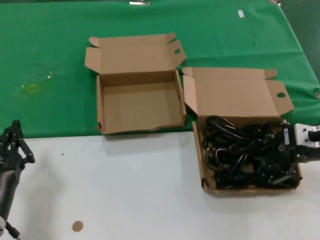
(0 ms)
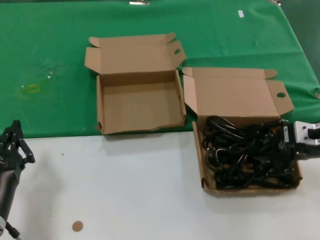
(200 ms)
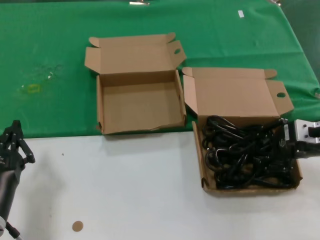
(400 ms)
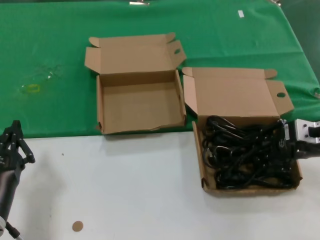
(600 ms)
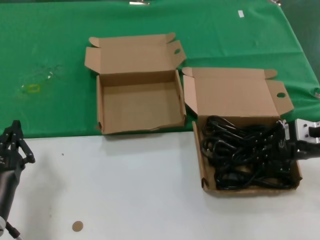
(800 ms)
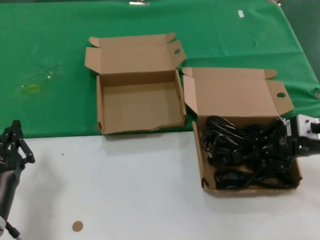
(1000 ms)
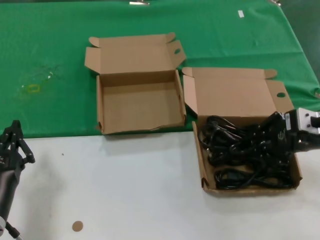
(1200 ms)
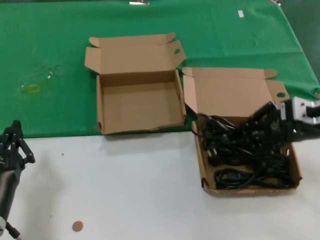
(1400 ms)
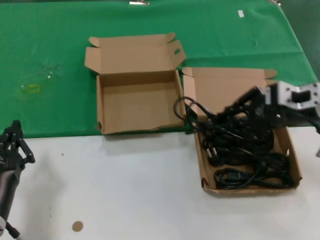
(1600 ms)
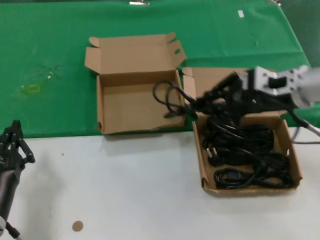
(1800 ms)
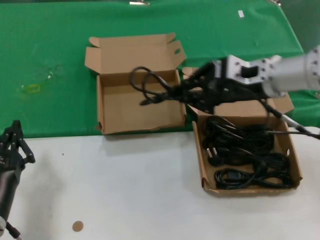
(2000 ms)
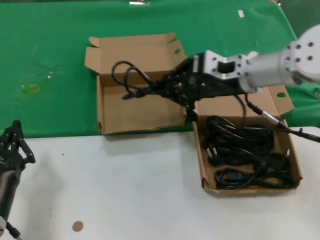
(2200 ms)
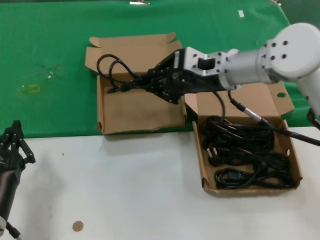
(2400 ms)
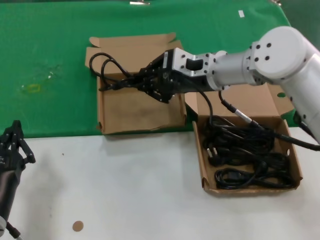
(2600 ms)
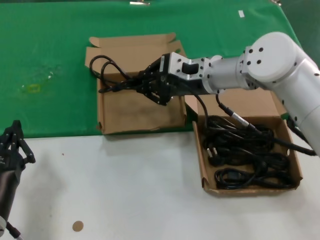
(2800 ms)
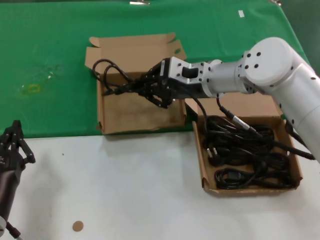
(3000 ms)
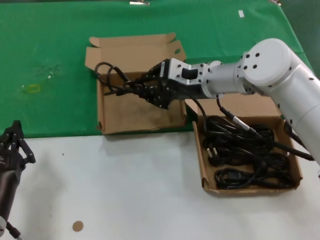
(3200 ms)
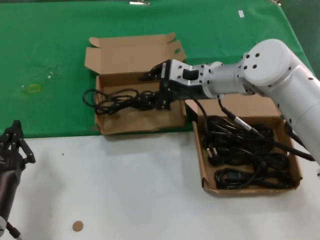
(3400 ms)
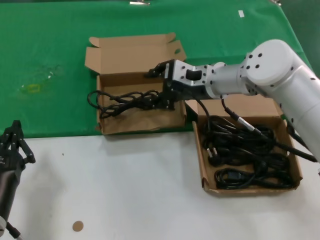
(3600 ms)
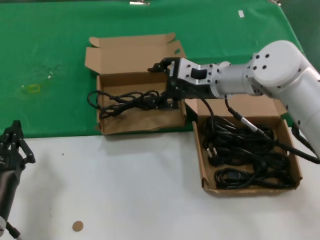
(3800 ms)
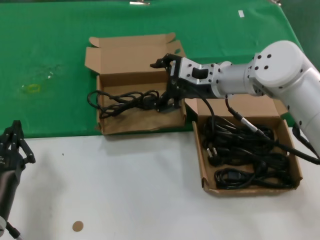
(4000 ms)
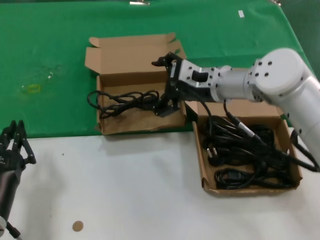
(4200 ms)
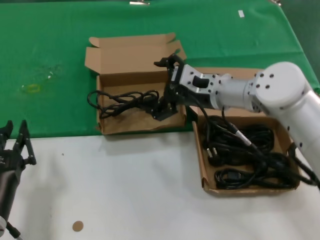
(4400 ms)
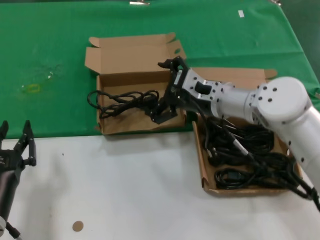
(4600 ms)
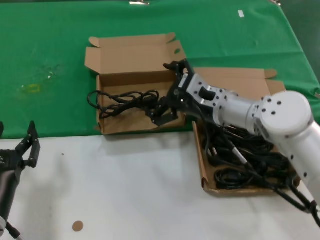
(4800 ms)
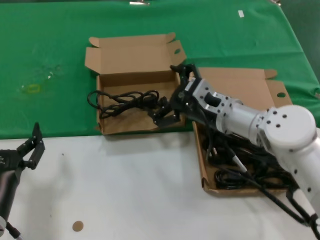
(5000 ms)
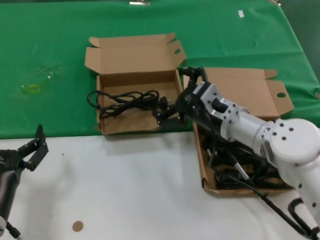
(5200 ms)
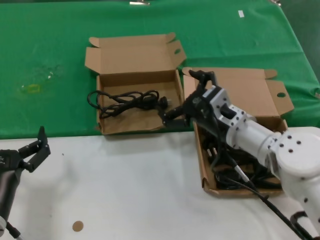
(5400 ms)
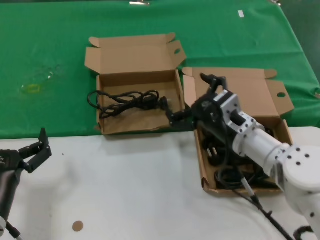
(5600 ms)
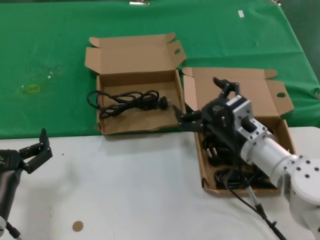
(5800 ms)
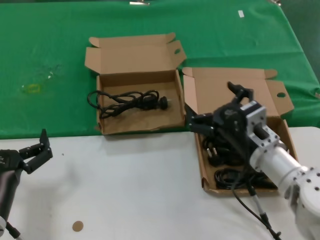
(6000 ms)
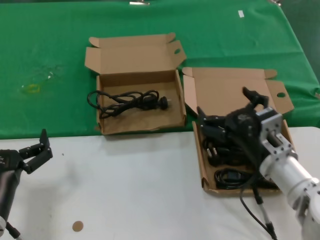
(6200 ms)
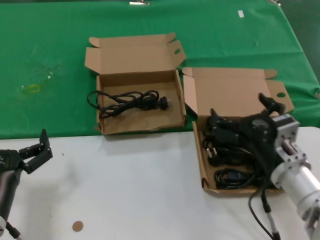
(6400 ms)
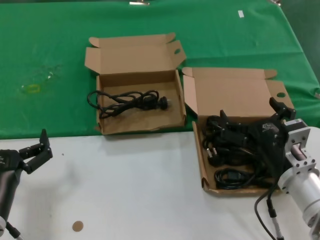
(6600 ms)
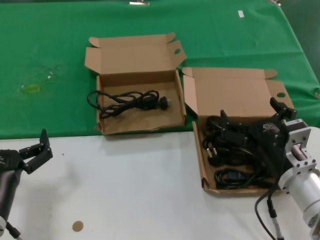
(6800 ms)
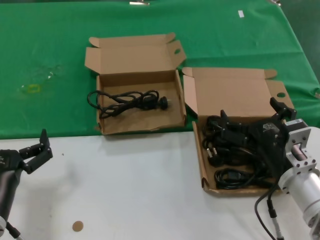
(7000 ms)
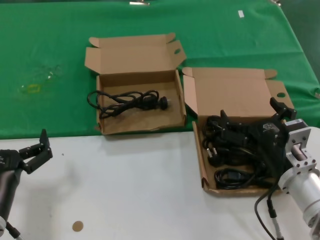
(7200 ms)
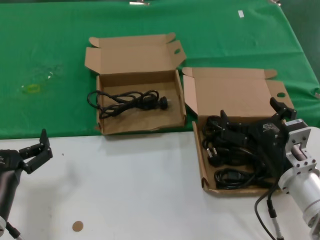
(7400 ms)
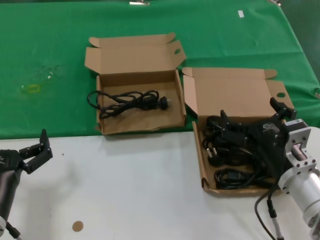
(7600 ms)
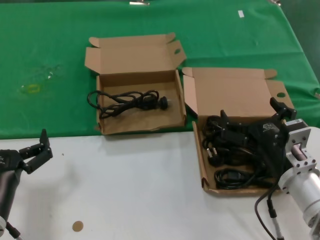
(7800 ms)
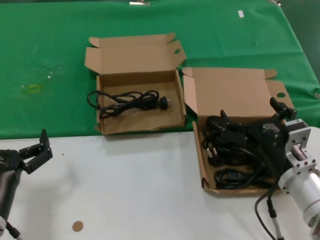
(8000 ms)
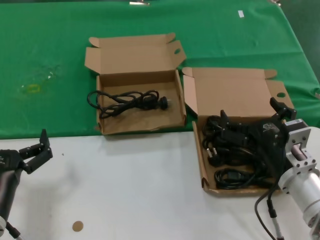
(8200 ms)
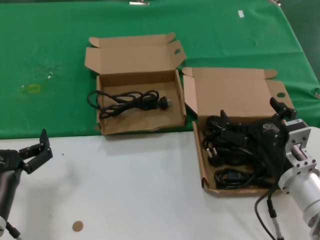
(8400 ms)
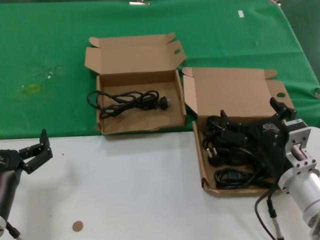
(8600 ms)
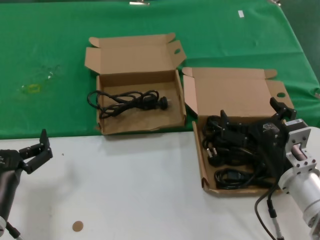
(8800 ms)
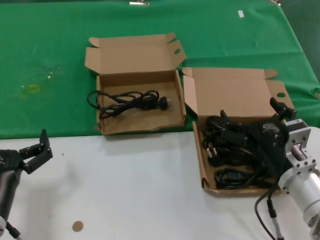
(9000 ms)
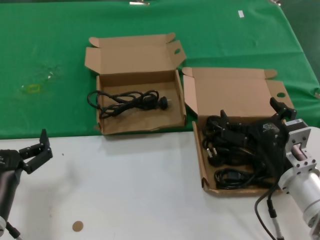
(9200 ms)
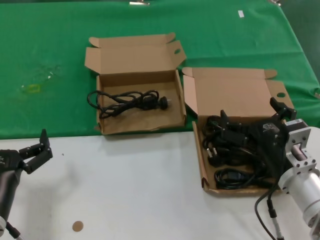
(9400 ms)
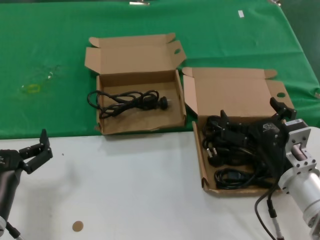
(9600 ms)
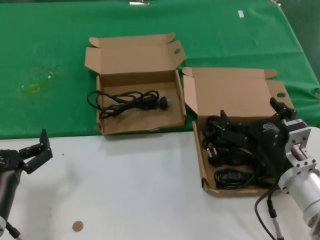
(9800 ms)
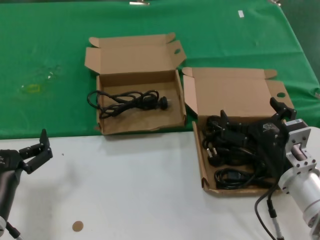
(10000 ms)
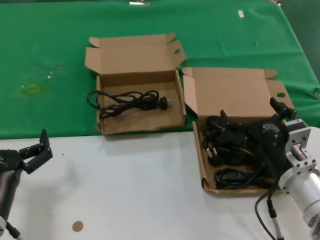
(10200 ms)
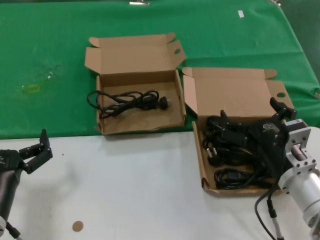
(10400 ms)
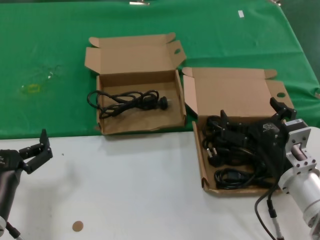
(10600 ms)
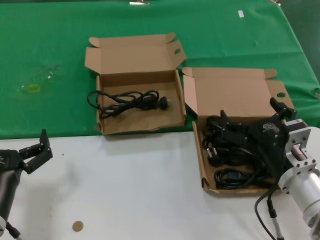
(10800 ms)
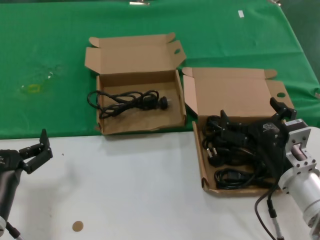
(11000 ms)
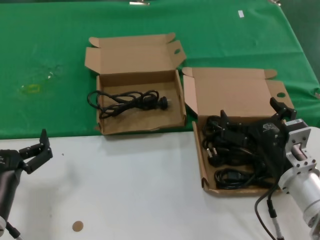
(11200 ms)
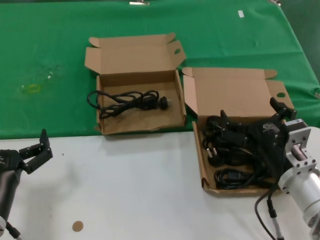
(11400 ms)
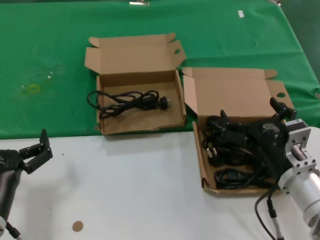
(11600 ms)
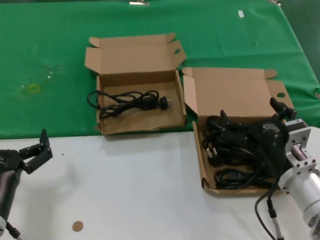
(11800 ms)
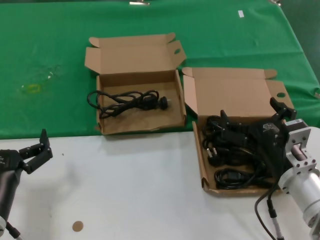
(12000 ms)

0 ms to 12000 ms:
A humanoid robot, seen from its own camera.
Task of the whole recording: take the parts from the box containing them and put them into an empty box.
Step, 1000 ms to 3800 ms: Place the data cable in the another box.
0 ms to 1600 ms: The right hand goes about 5 cm upward.
1600 ms to 3000 ms: The right hand is displaced to the left and forward by roughly 20 cm.
3000 ms to 4400 ms: There are only small adjustments of the hands.
4400 ms to 6000 ms: The right hand is displaced backward and downward by approximately 15 cm.
6000 ms to 7600 ms: The right hand goes about 5 cm backward.
7600 ms to 12000 ms: Both hands stay about where they are.

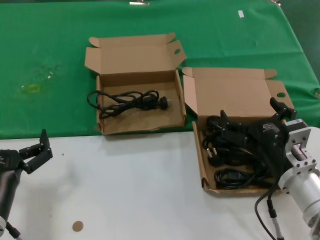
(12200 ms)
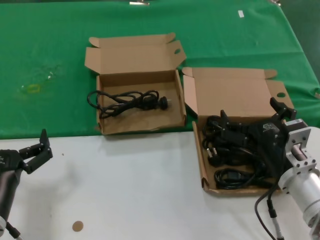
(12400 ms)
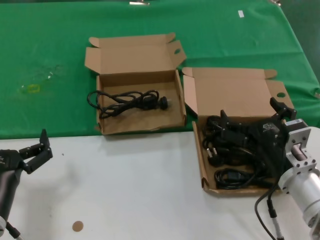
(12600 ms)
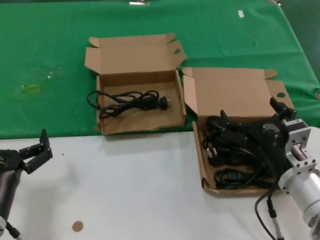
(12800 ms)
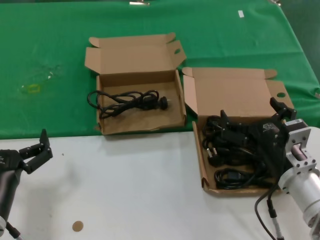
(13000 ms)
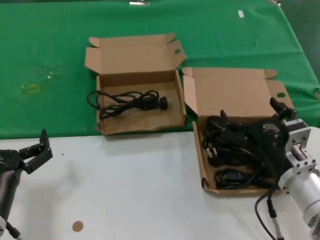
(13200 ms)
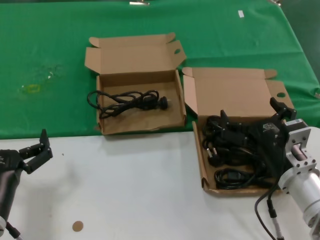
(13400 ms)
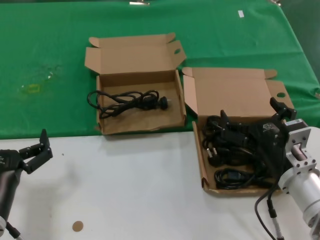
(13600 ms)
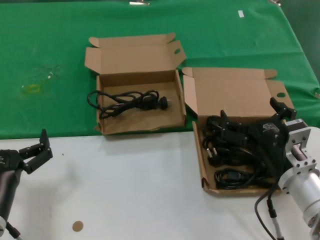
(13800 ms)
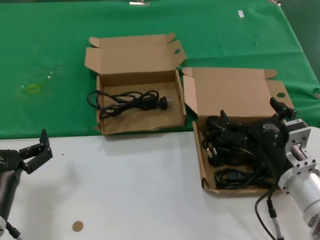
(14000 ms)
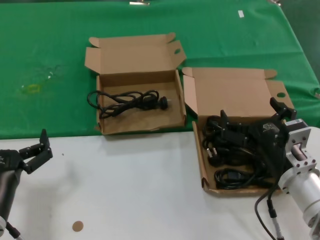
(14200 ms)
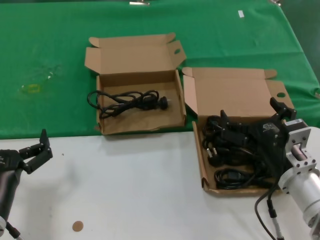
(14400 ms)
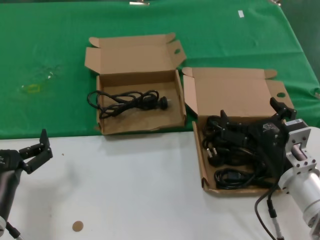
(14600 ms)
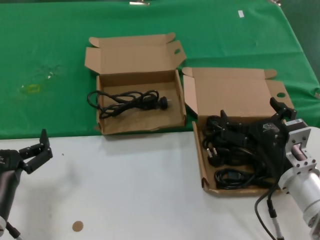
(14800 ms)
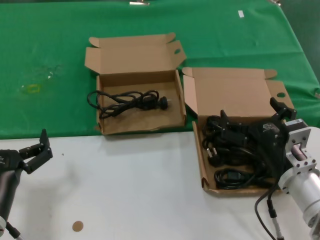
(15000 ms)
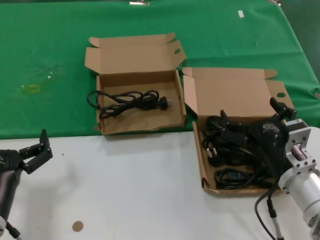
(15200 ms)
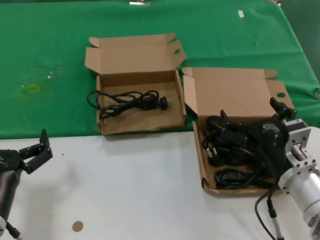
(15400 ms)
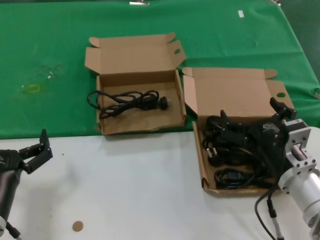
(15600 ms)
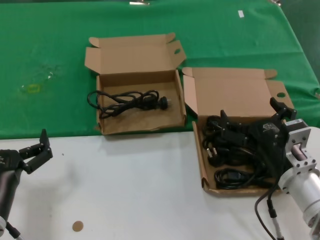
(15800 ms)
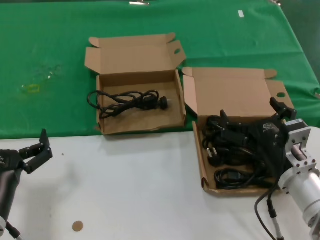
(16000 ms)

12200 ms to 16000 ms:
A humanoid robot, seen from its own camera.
Task of the whole recording: take the parts from the box containing them and put them into an empty box.
12200 ms to 16000 ms: Neither hand changes place.

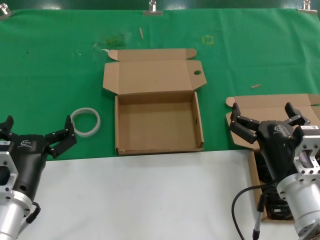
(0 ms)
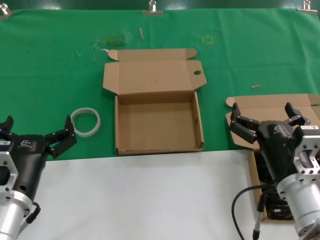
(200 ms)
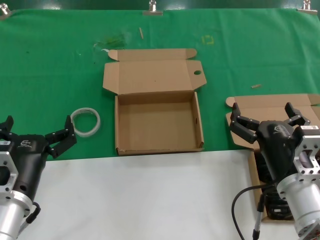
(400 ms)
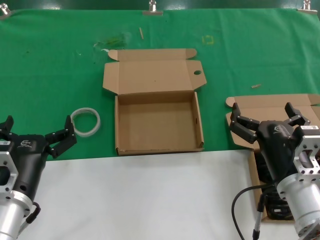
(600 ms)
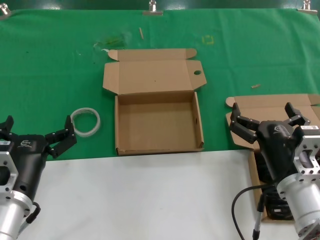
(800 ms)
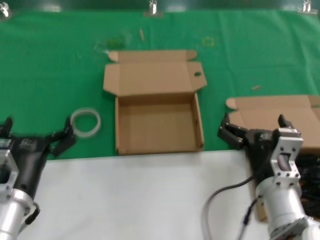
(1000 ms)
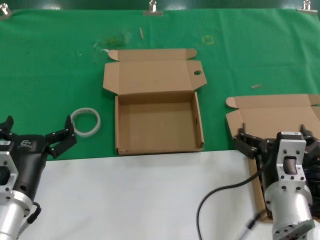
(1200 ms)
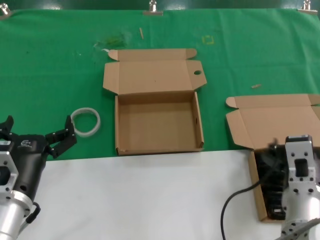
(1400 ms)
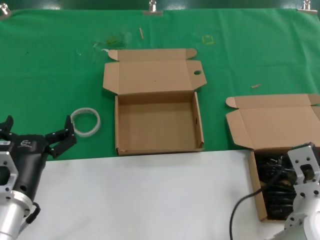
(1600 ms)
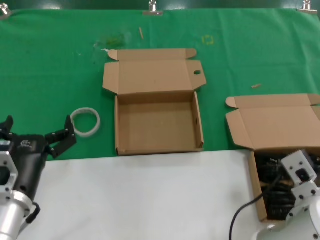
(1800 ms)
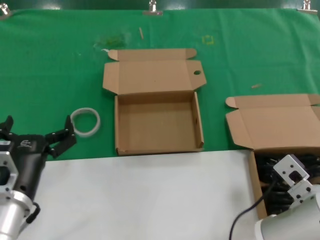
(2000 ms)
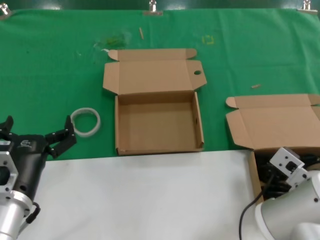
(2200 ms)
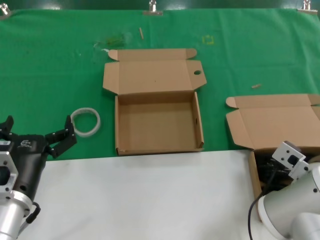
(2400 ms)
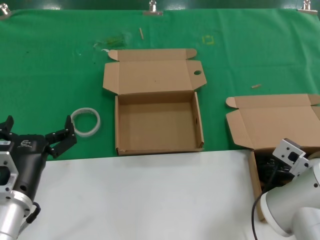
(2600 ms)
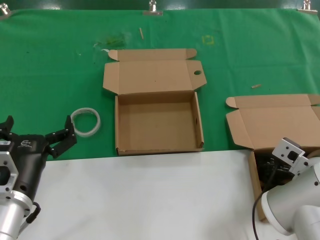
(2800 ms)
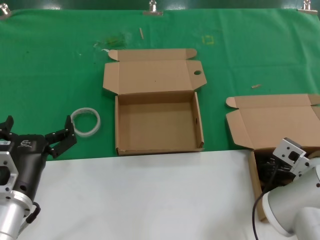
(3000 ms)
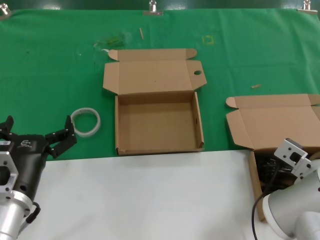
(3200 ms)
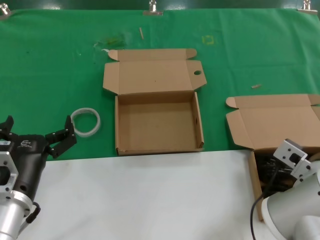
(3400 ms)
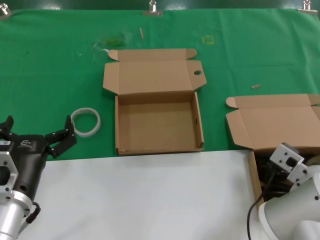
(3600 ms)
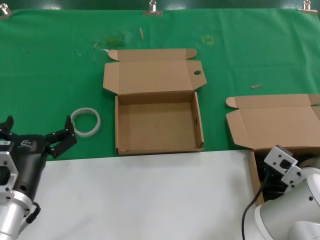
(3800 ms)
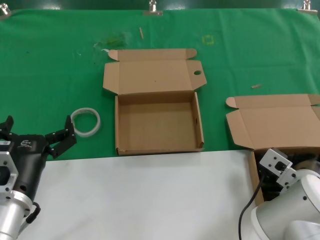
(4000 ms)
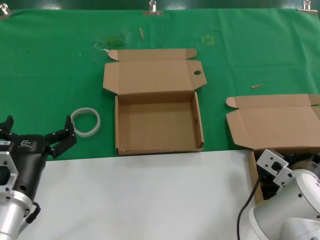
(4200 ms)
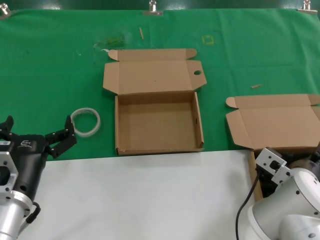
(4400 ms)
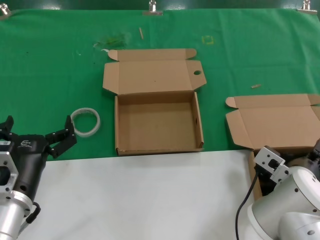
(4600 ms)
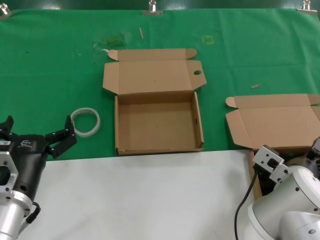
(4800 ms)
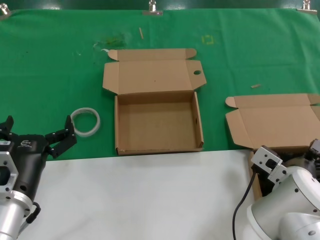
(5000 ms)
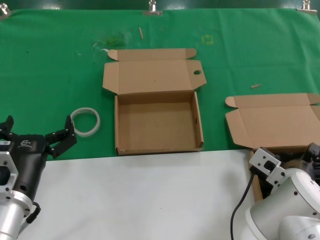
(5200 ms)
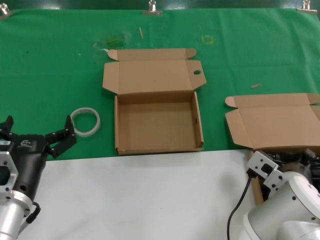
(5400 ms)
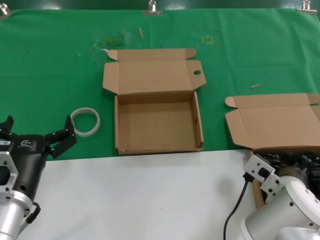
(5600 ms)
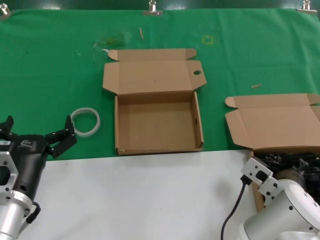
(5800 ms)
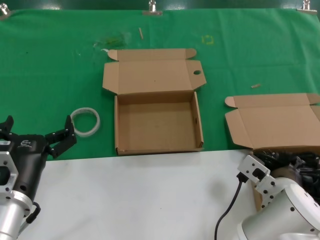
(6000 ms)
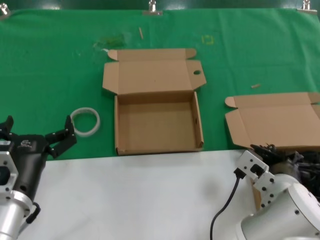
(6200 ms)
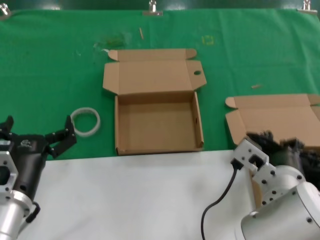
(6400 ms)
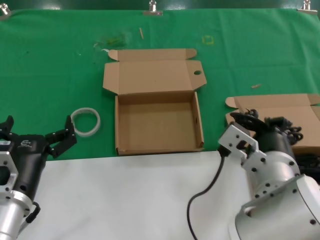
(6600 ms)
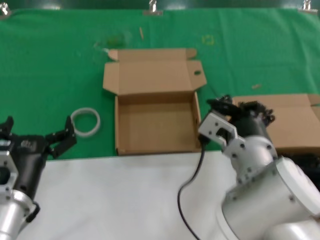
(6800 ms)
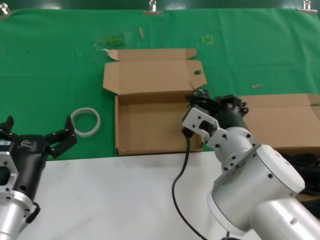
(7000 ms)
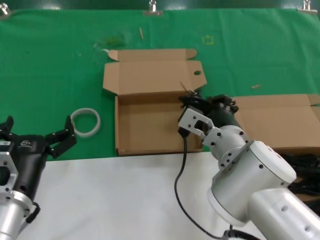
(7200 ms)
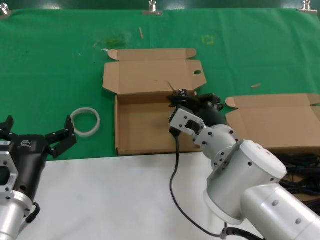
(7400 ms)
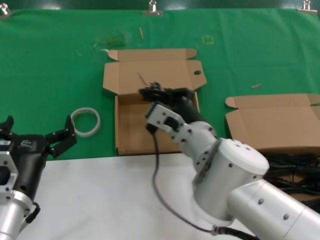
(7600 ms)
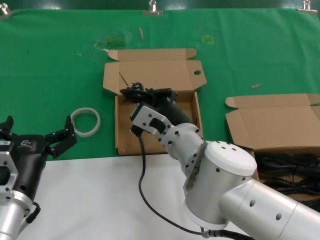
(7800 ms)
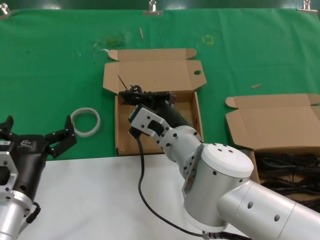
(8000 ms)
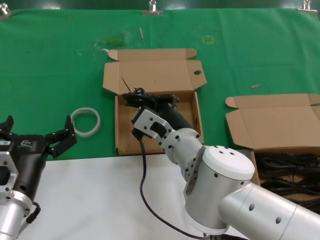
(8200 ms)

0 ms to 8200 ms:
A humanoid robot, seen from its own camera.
Task of the whole recording: take the parts from the box containing them and put them into an empty box.
Step, 0 ms to 6000 ms: Grasp the data cable.
0 ms to 1600 ms: The right hand moves some 5 cm.
1600 ms to 3200 ms: The right hand heads forward, covering approximately 10 cm.
3200 ms to 5000 ms: The hands stay close to where they were, moving slightly.
5000 ms to 6600 ms: The right hand goes roughly 15 cm upward, to the left and backward.
6600 ms to 8200 ms: The right hand heads to the left and forward, covering about 15 cm.
